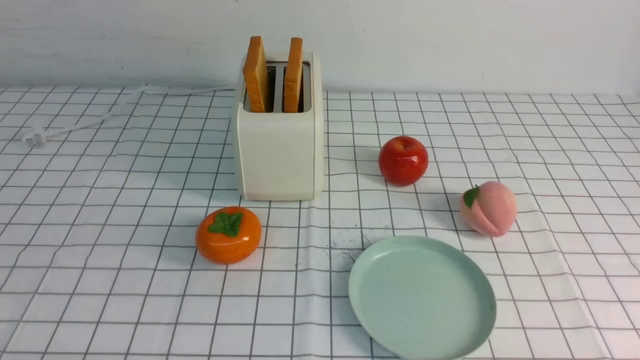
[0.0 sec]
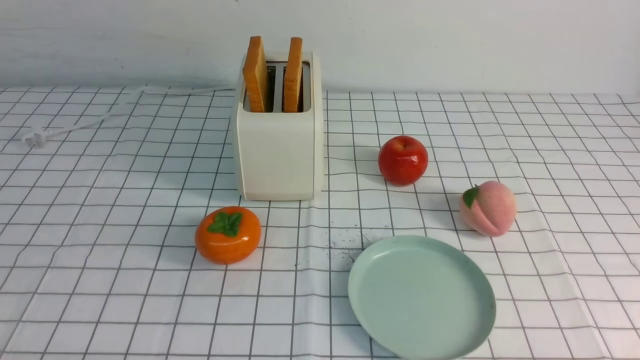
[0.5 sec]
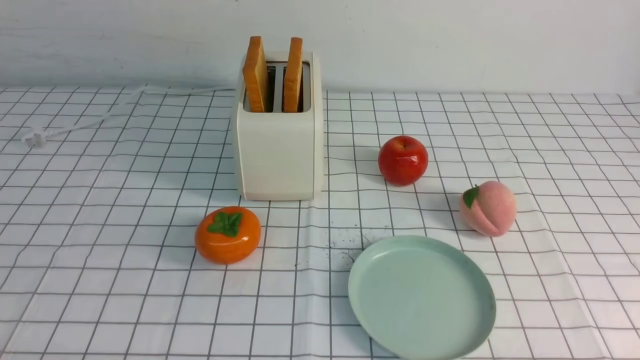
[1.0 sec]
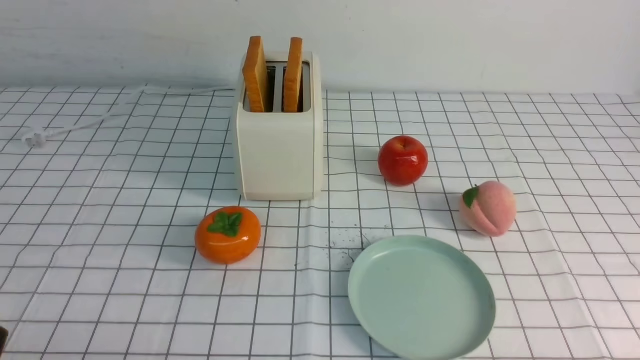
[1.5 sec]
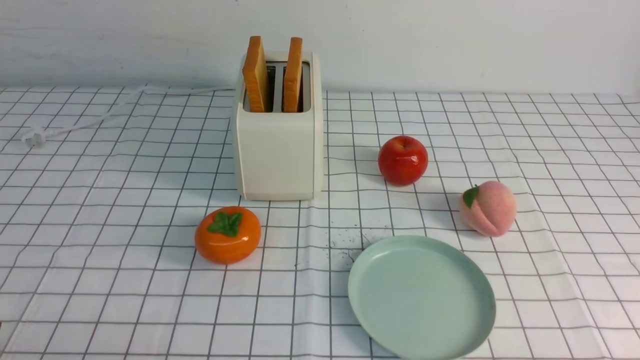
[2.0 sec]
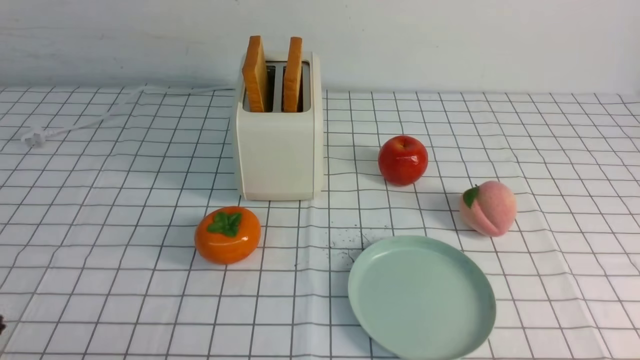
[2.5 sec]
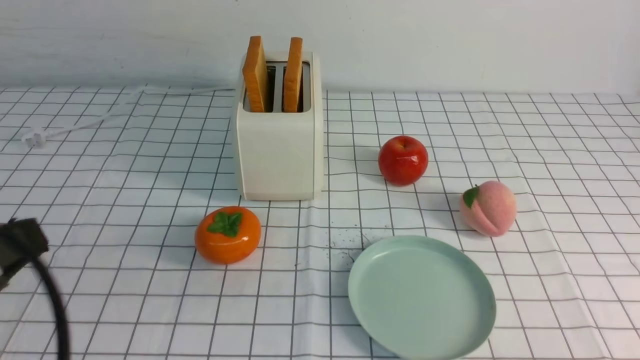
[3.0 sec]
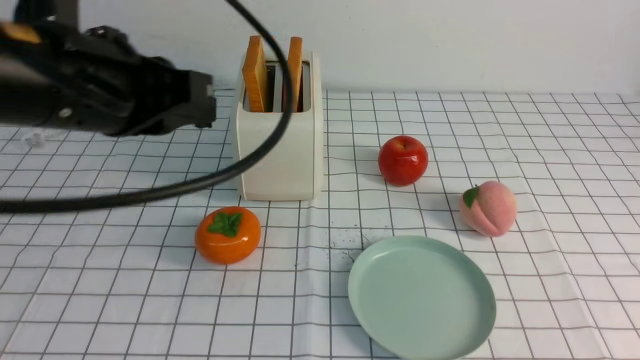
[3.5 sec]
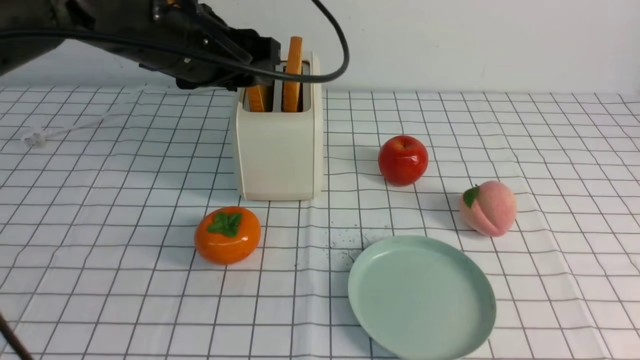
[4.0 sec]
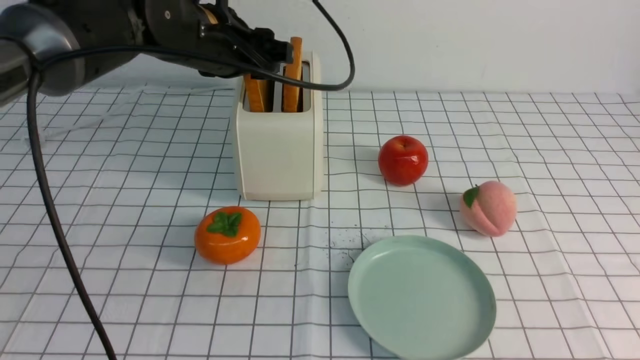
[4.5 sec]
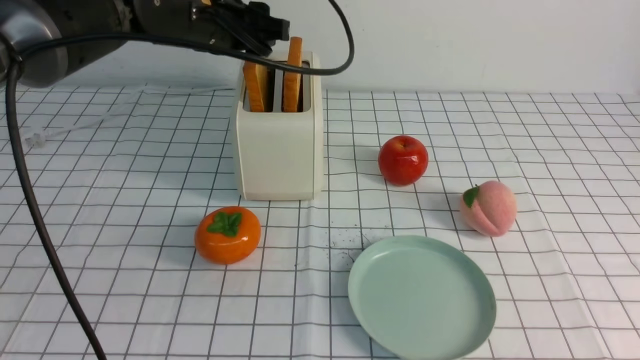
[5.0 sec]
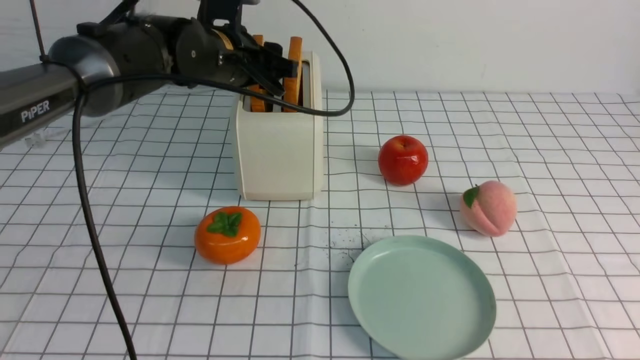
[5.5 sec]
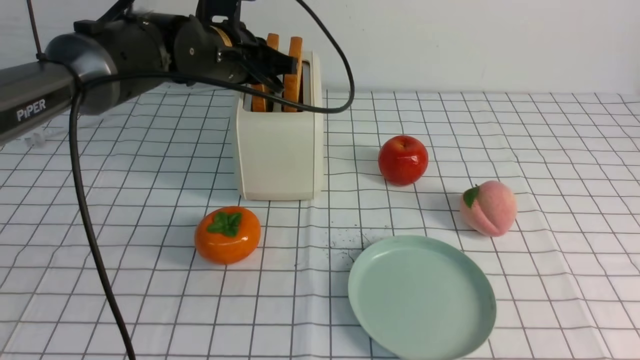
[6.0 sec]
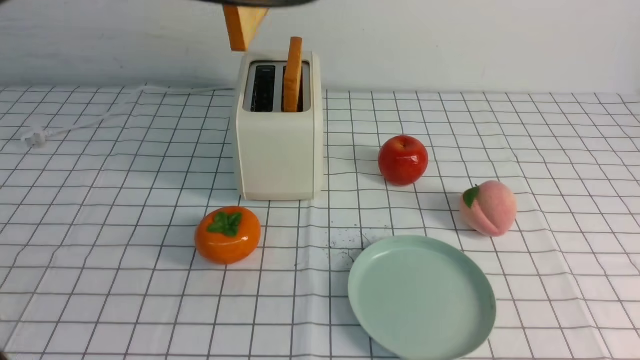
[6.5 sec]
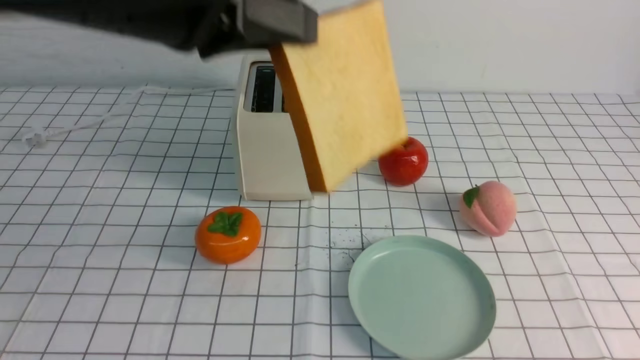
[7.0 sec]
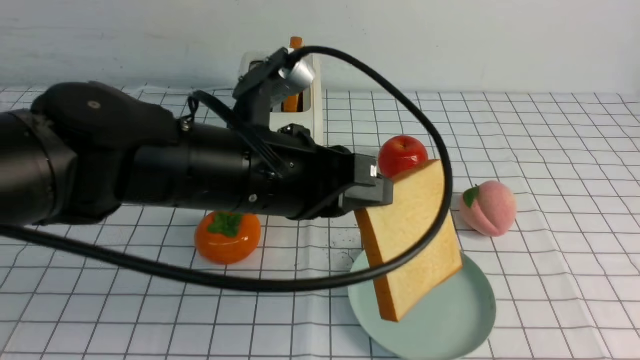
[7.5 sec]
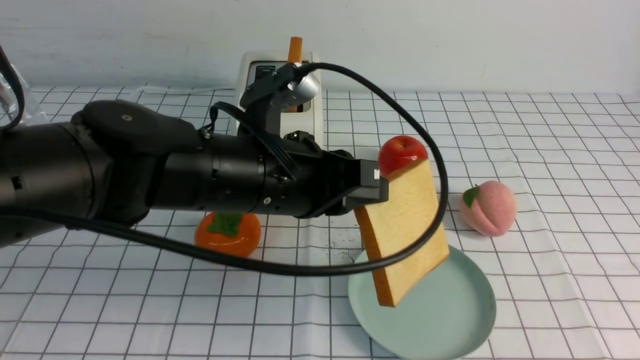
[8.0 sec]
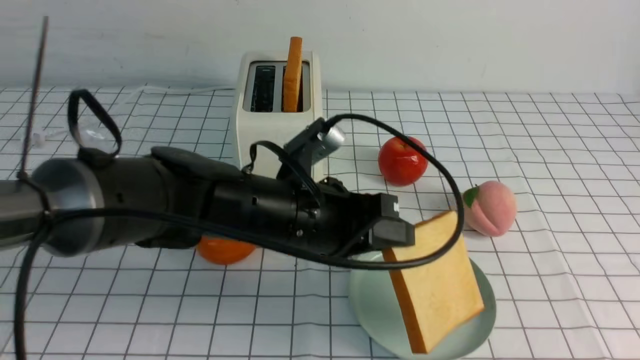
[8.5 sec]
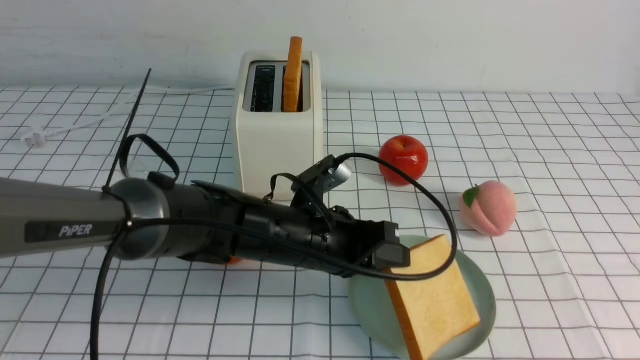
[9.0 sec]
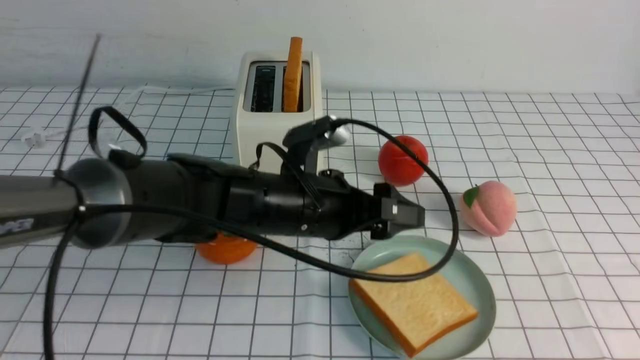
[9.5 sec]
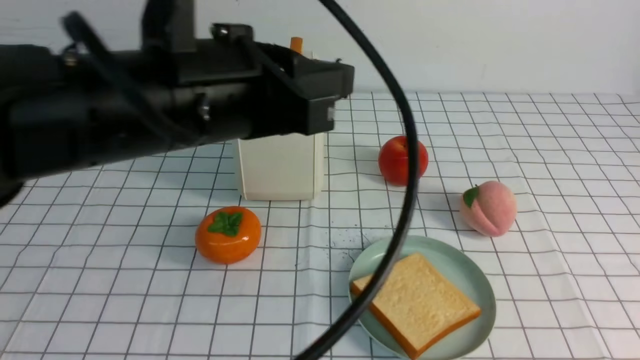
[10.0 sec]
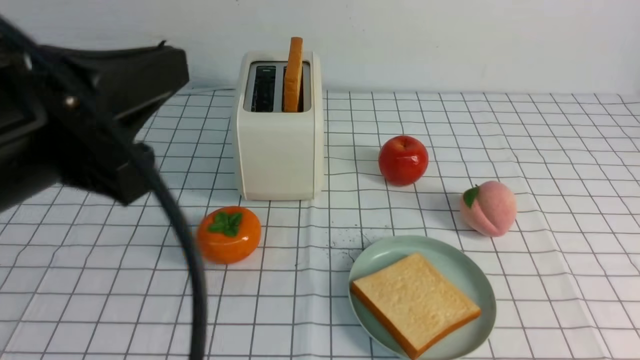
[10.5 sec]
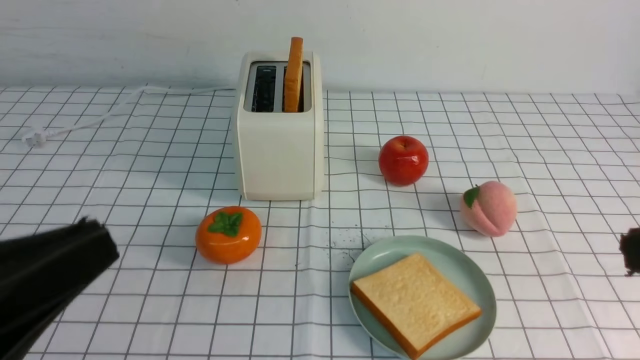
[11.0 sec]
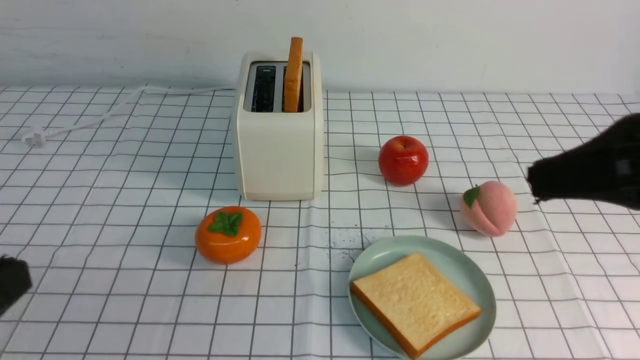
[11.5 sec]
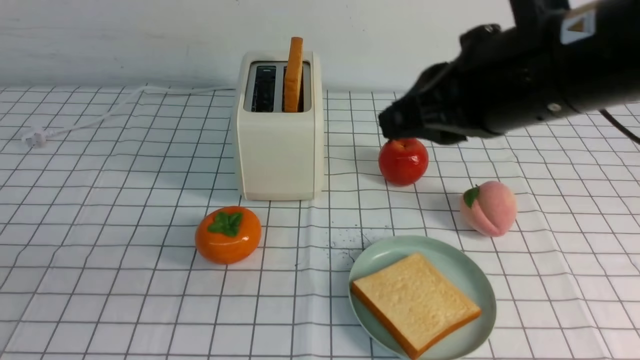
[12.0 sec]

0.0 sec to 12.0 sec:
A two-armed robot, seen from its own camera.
Task of the whole recording: take toasted bread from bread machine on white checkered table place on plate.
Step, 0.0 sec to 6.0 sec: use the left arm to take out a slice of bread.
Step, 6.5 sec to 9.5 sec: use the left arm to put a slice of bread into the empty plate.
2.0 sec to 4.0 sec: The right gripper travels upward by some 20 cm, and closes, while the left gripper is displaced forward, upward and to the right by approximately 40 cm, and closes, then opens again.
4.0 sec to 6.0 sec: The left gripper moves forward, about 10 cm, and closes up.
6.0 sec to 8.0 sec: The left gripper heads backward, covering approximately 20 cm.
8.0 sec to 10.0 sec: The left gripper heads upward, covering roughly 10 cm, and opens, then closes once more.
10.0 sec to 12.0 sec: The right gripper heads forward and to the left, covering approximately 30 cm; the left gripper goes some 20 cm backward and to the left.

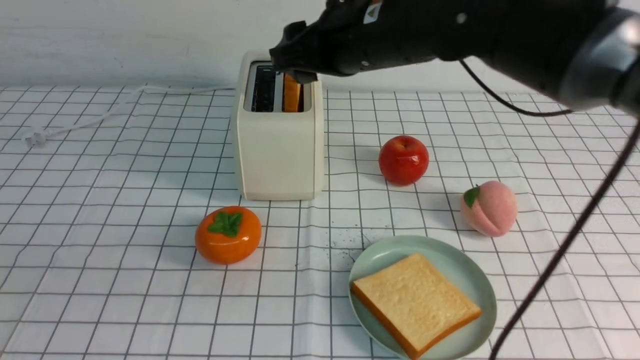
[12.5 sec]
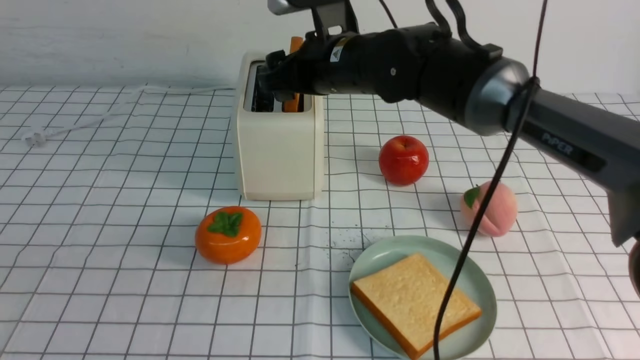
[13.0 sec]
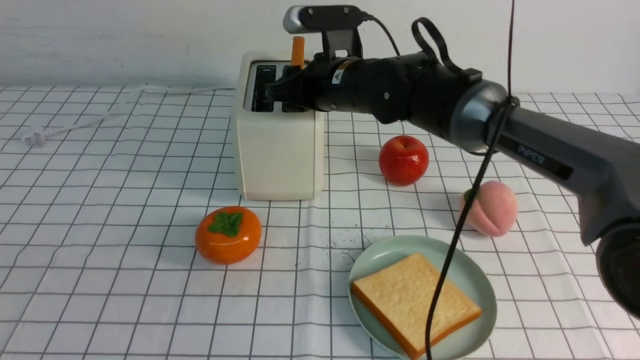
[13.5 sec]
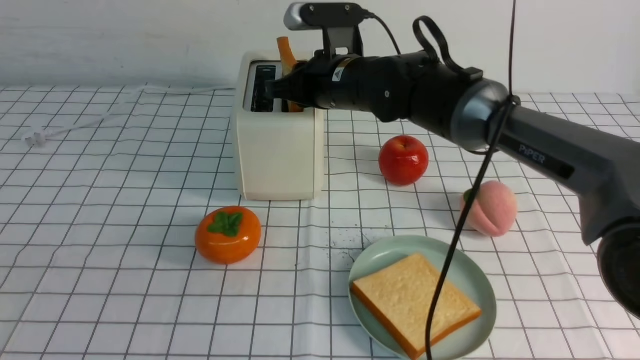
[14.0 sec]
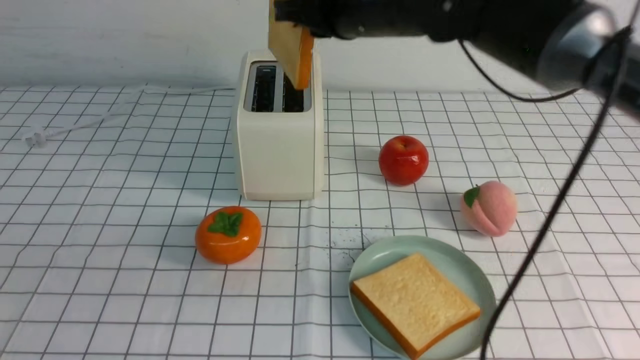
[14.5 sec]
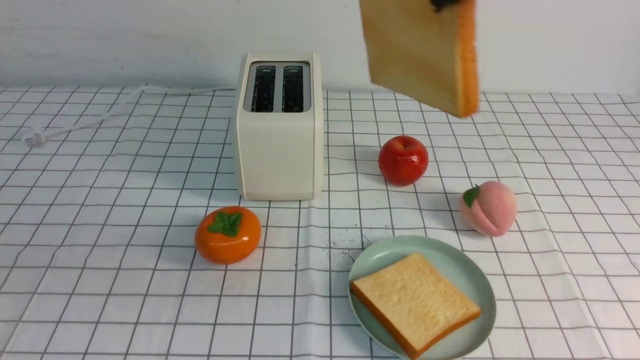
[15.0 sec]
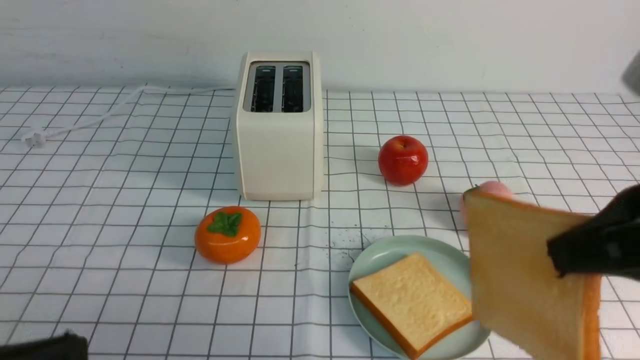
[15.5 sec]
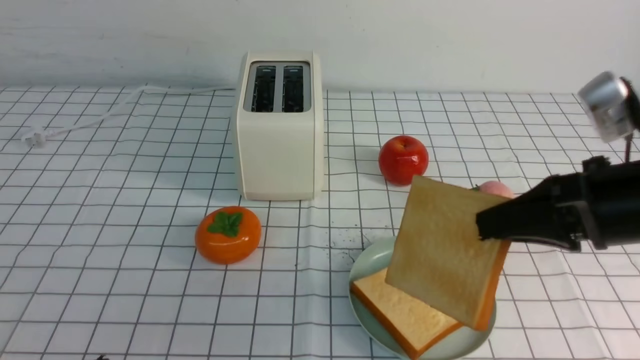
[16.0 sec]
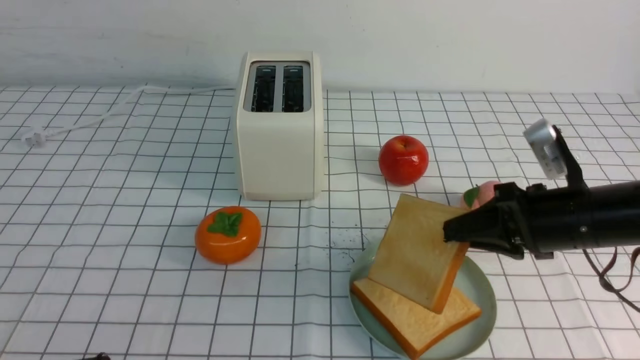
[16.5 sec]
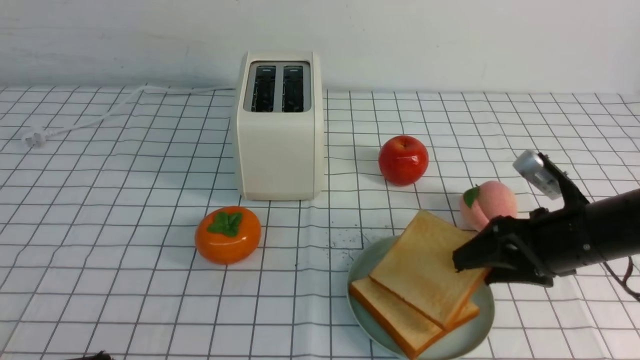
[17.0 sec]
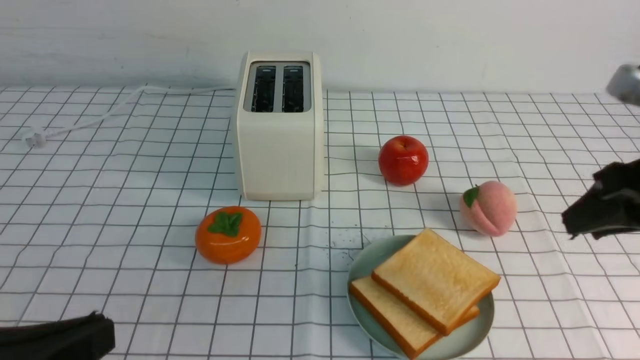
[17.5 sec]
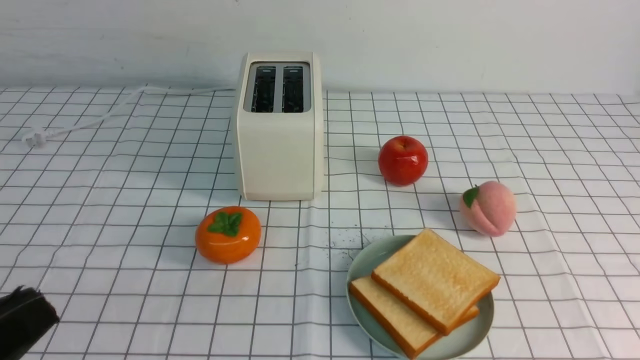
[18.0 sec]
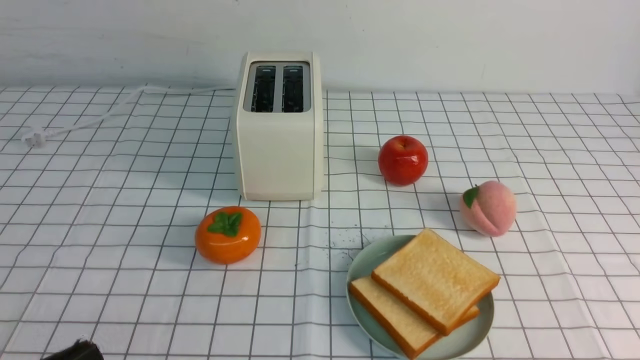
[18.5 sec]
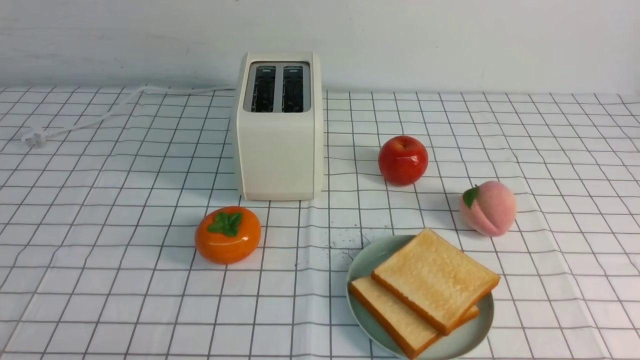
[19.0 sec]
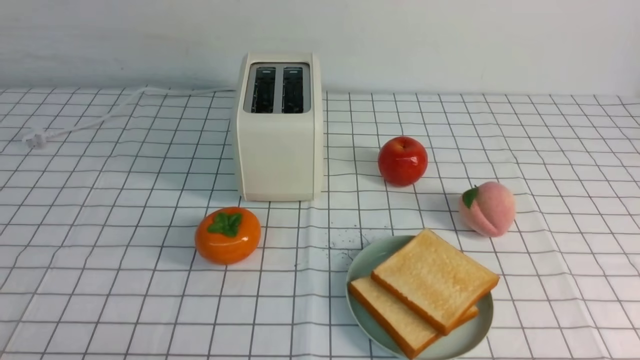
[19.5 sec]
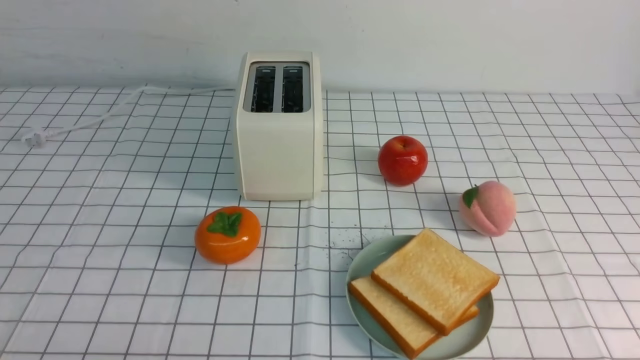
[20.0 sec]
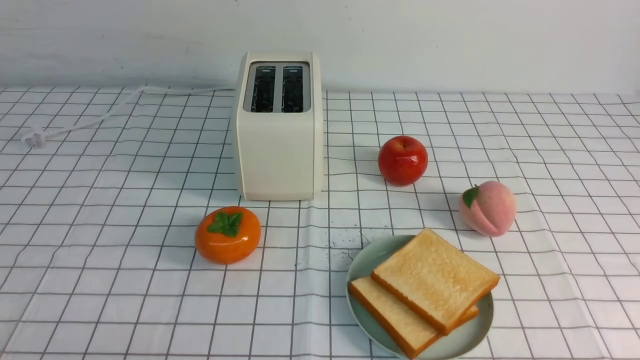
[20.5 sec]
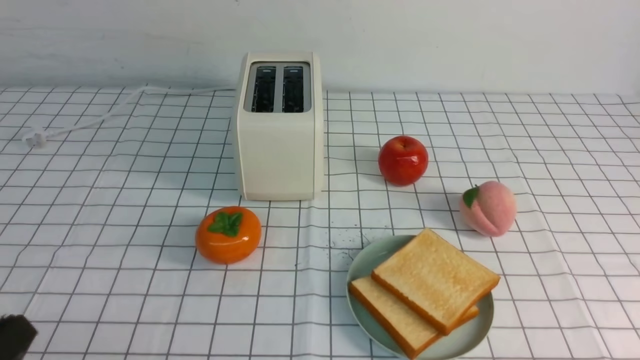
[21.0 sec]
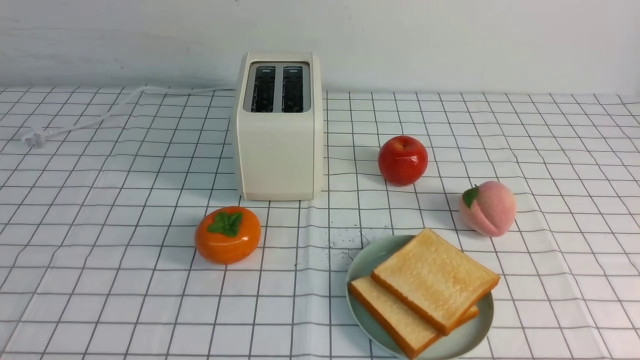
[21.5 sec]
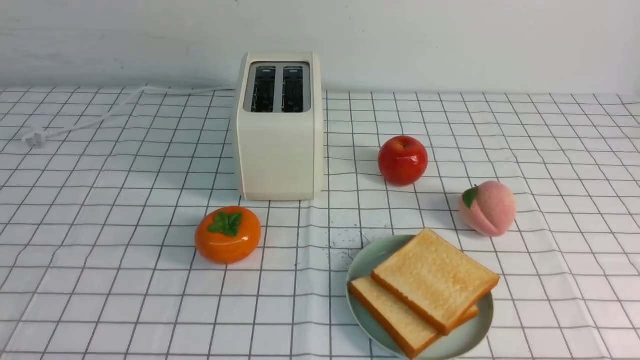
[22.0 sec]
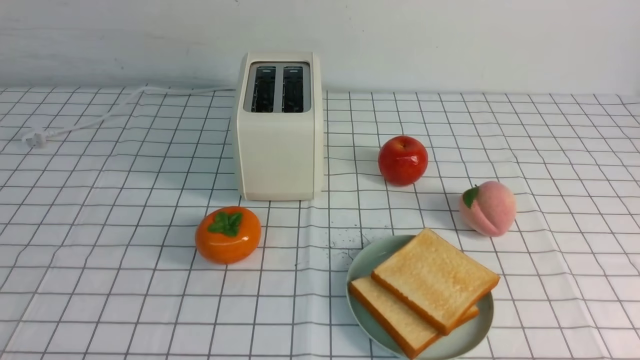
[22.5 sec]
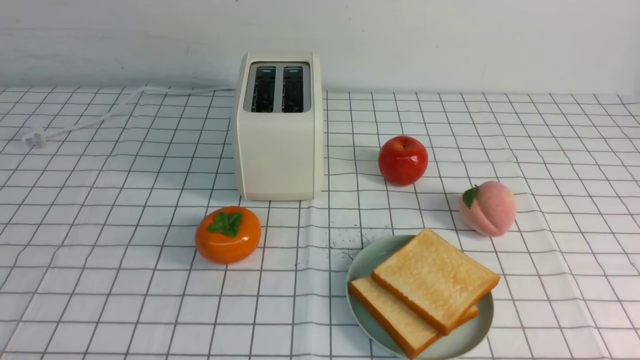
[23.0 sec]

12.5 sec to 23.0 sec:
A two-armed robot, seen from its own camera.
Task of the whole recording: take toasted bread from bread machine on white checkered table place on plate.
Step, 12.5 sec to 14.5 sec: use the right arm to take out a slice of bread.
Step, 15.0 sec to 17.0 sec: use the right arm to put a slice of bread into the plate.
12.5 sec to 14.5 sec: The right gripper moves some 10 cm downward and comes back, and closes up.
14.5 sec to 16.5 sec: The left gripper ends up roughly 5 cm from where it was, while the right gripper shifts roughly 30 cm downward, to the right and backward.
16.5 sec to 19.0 sec: The right gripper travels backward by roughly 25 cm, and opens, then closes again; the left gripper travels downward by some 10 cm.
